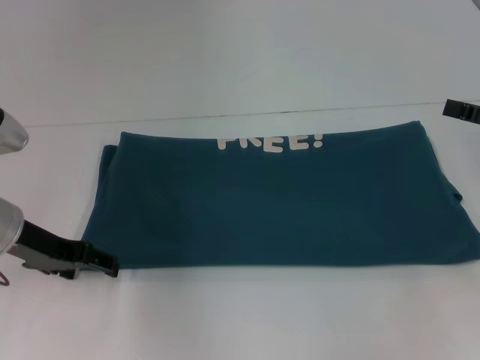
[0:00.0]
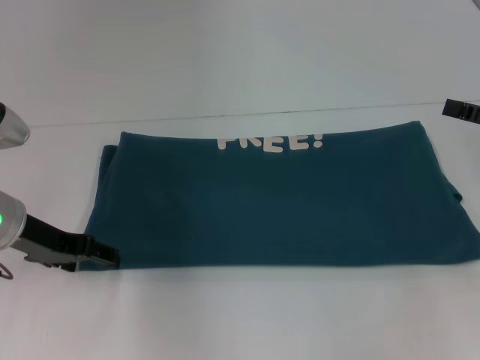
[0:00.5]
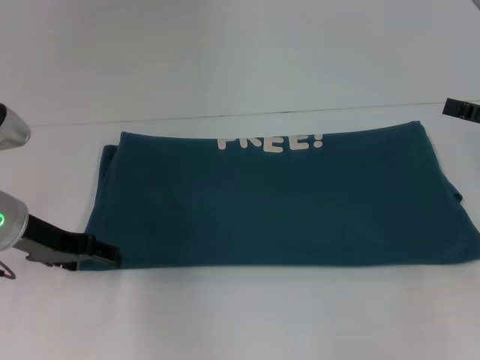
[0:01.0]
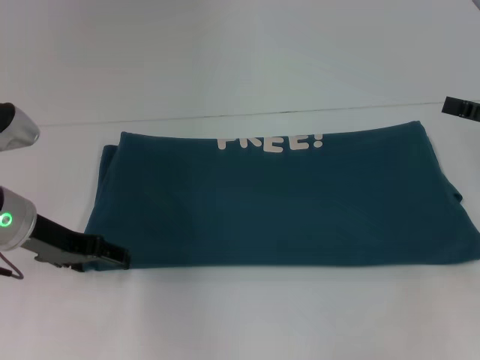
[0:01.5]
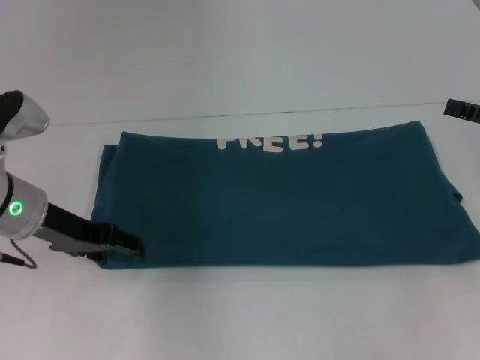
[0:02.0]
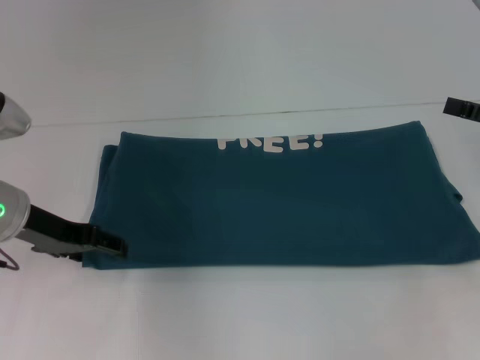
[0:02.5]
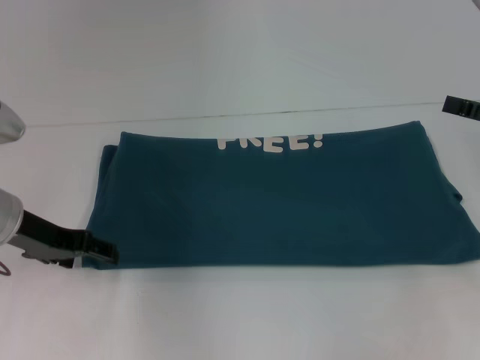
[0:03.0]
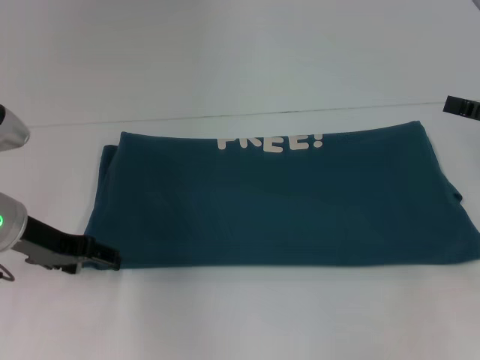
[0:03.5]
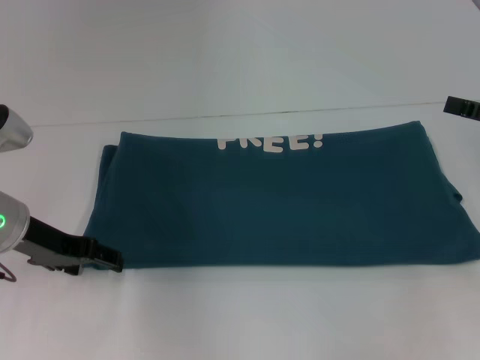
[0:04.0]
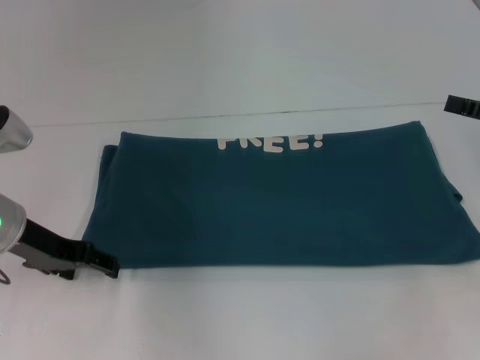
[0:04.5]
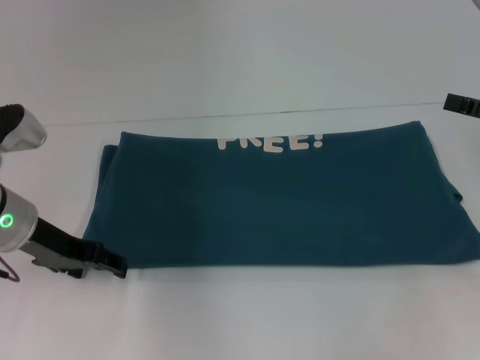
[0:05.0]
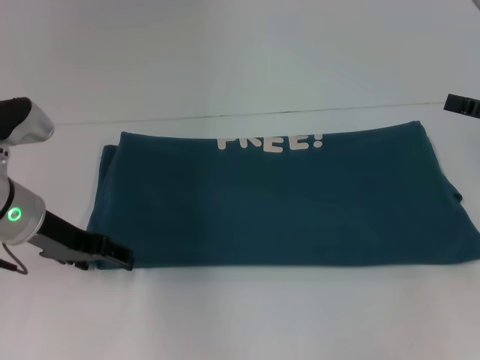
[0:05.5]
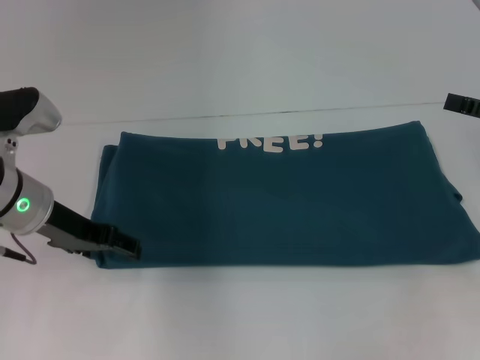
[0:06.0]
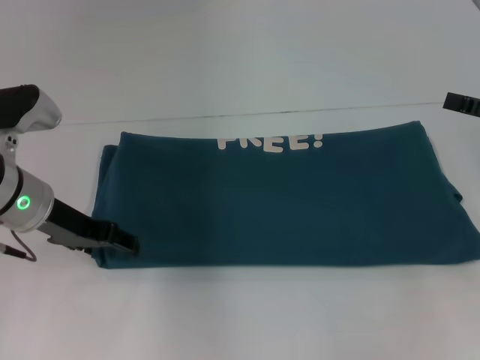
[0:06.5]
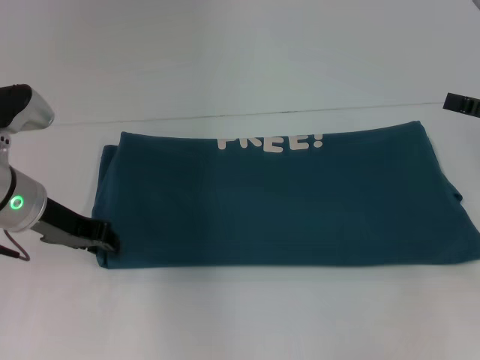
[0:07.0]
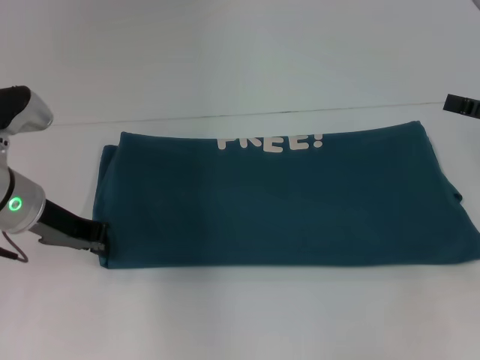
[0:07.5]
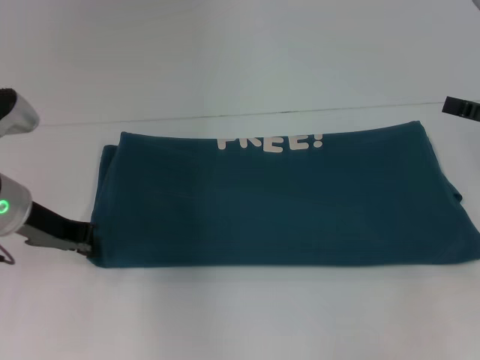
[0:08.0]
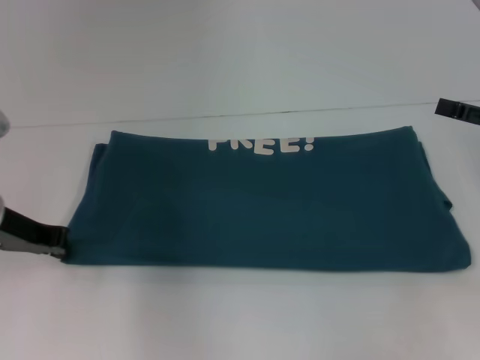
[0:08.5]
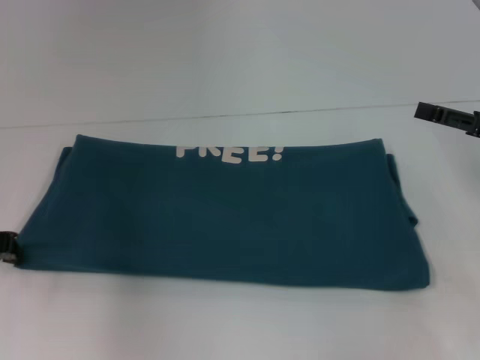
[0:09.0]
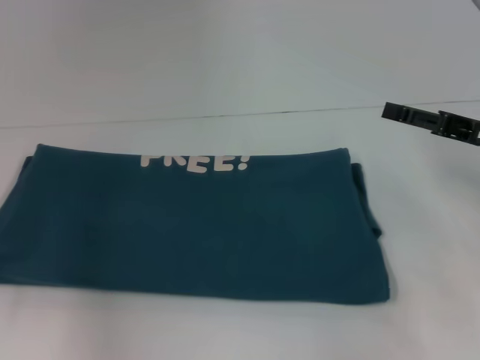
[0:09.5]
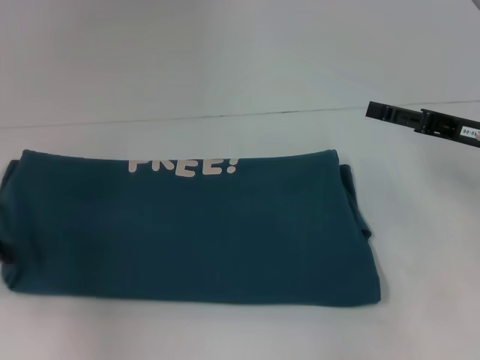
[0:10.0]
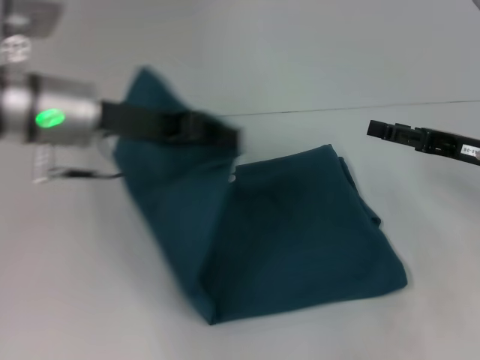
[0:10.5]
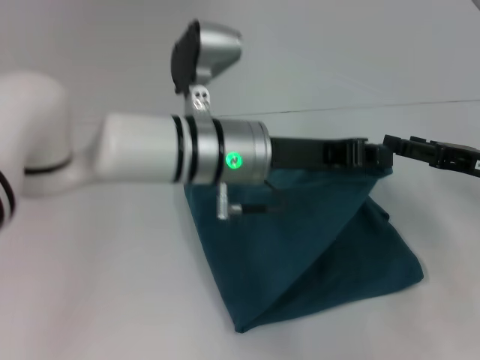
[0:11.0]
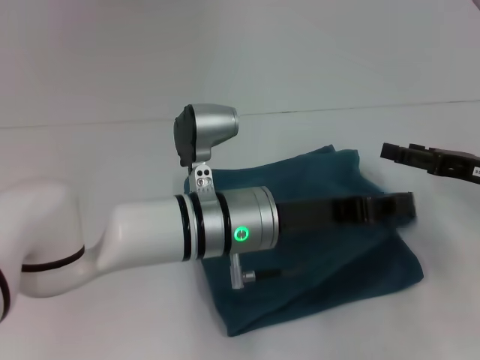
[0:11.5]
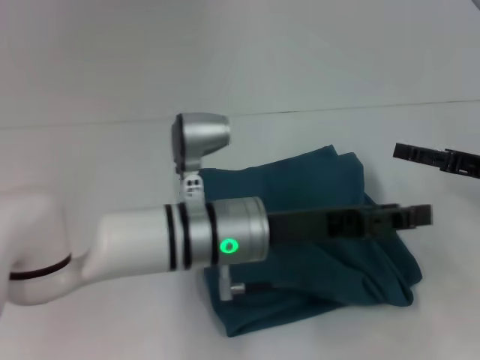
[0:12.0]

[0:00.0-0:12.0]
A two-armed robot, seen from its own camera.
Step, 0:00.0 to 0:11.5: Fold the clothes to the left.
0:00.0 to 0:06.0: There are only small adjustments of the grippers.
0:06.0 to 0:08.0: The left gripper closes up.
0:08.0 to 0:10.0: The left gripper shifts some 10 cm to the left and backward; the right gripper goes some 5 cm to the left.
0:10.0 to 0:12.0: The left gripper shifts roughly 30 cm to the right, and opens up.

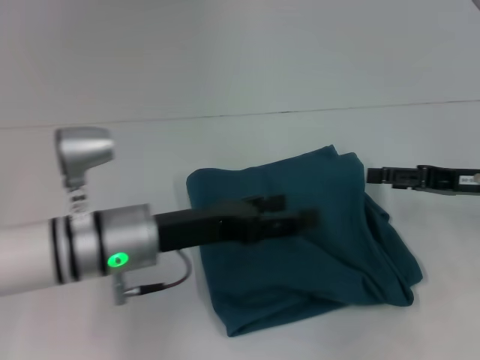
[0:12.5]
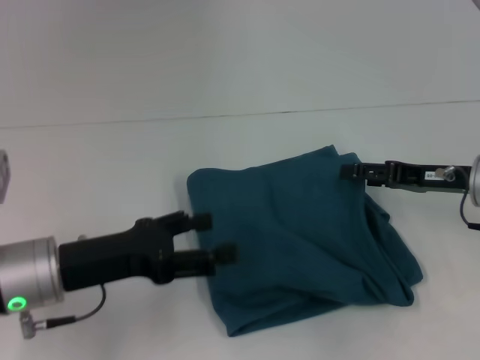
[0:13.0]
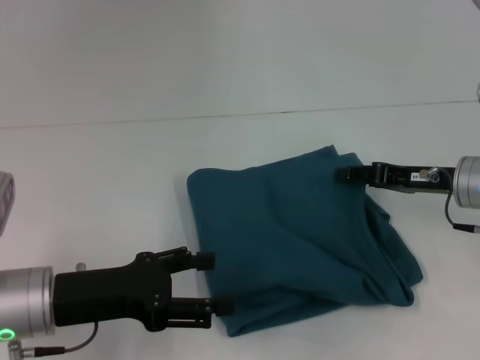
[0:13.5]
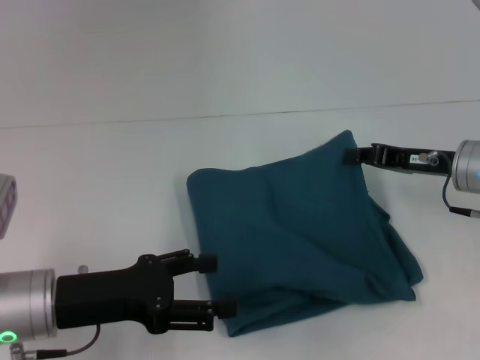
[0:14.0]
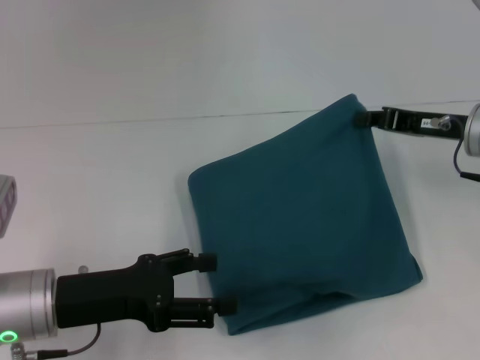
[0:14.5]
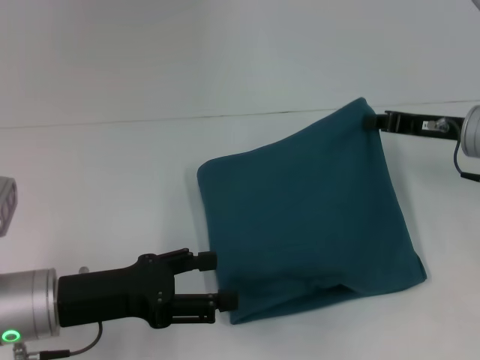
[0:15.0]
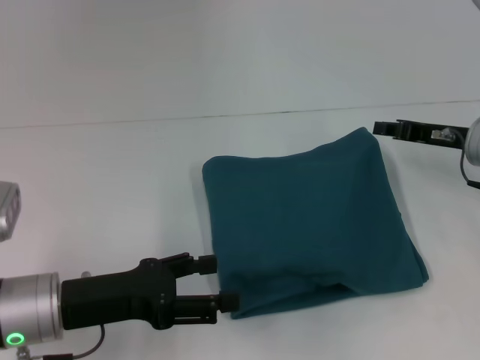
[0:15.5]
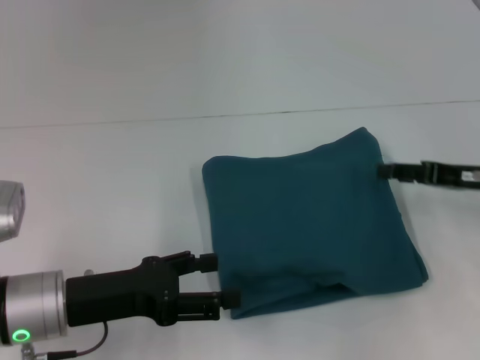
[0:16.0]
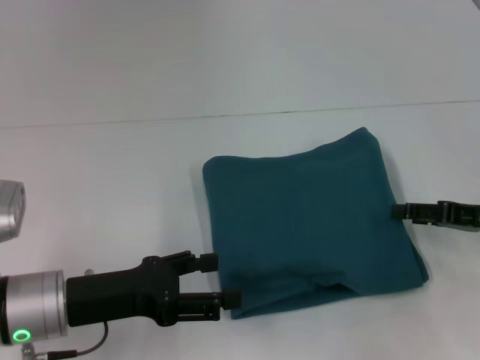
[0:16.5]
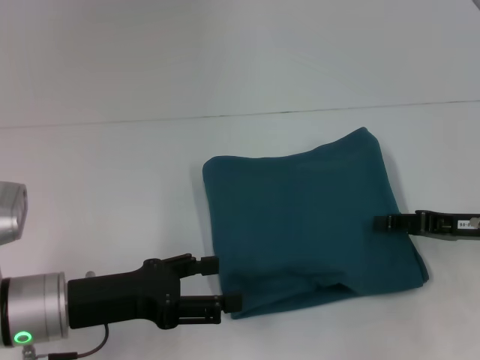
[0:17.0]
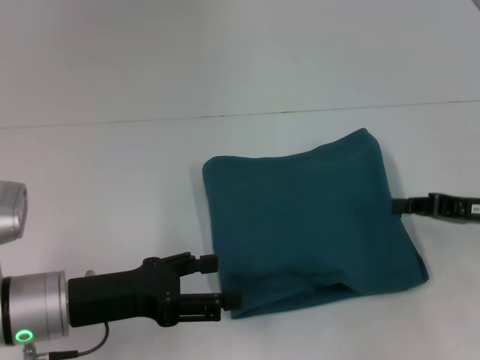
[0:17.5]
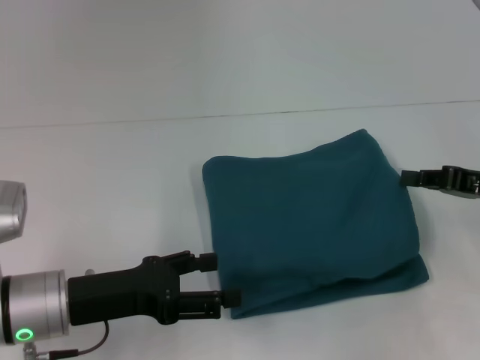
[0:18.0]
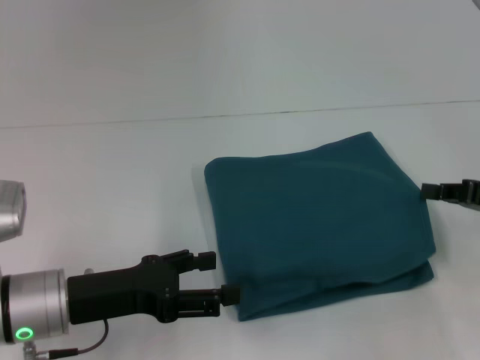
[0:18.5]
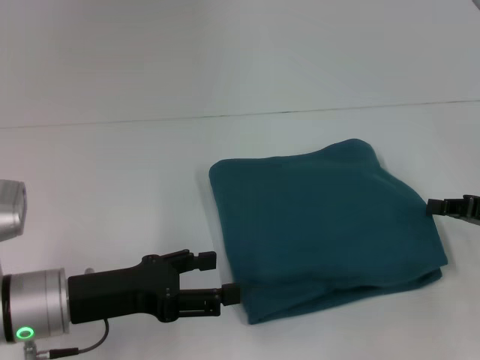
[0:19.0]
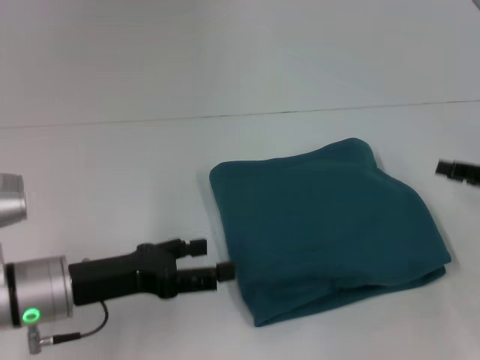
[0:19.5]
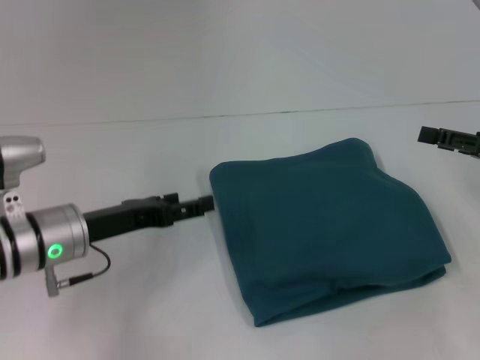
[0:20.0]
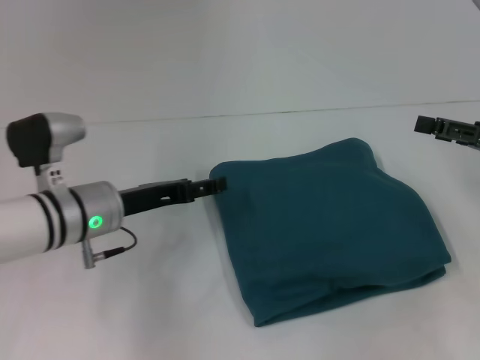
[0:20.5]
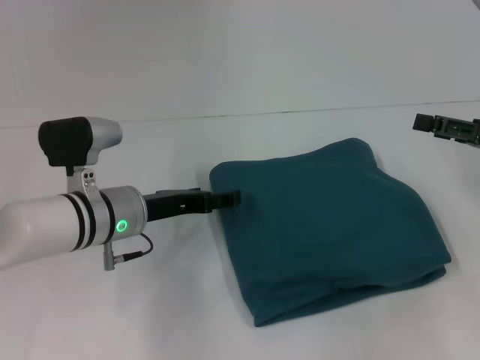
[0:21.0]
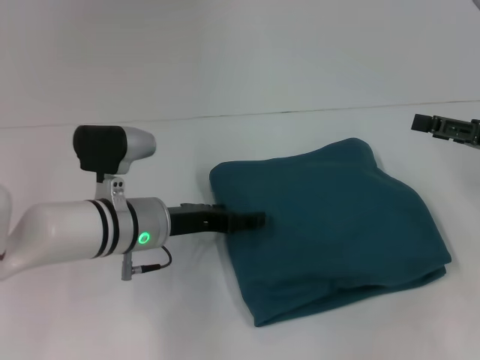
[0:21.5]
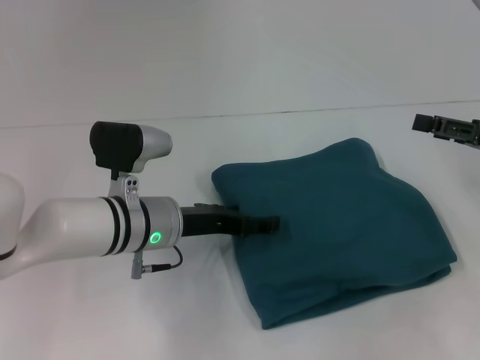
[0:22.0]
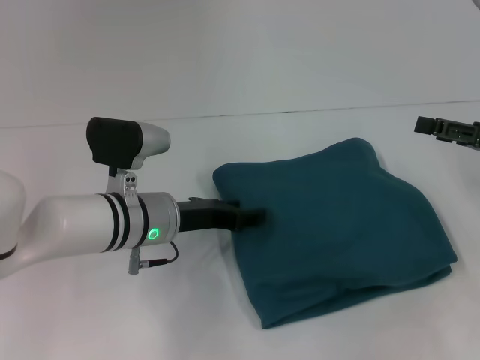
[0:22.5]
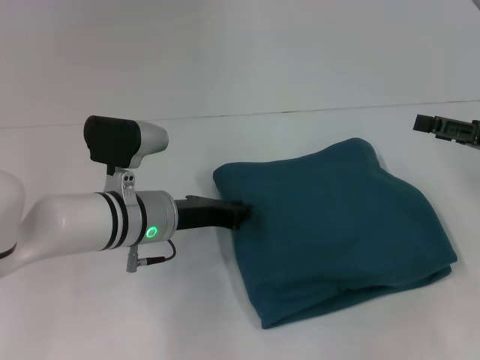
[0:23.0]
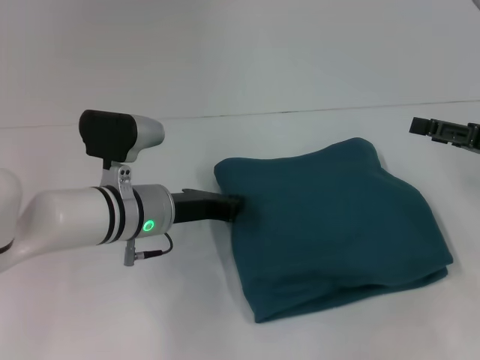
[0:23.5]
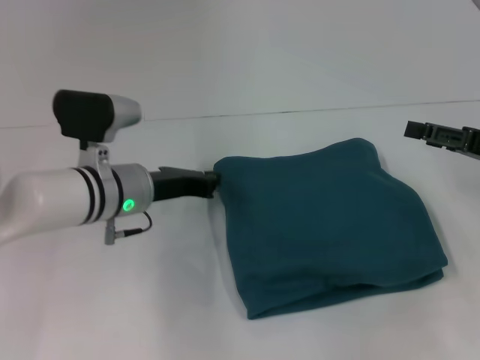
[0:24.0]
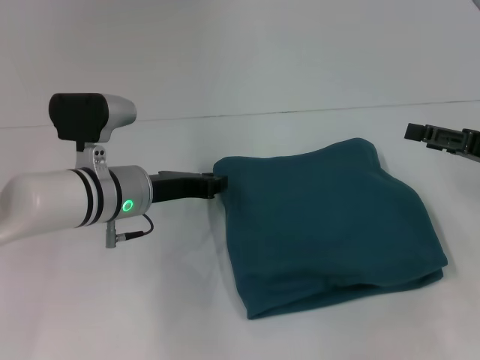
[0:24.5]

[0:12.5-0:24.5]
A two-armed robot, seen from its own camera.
0:12.5 to 0:14.5: The right gripper changes place by about 5 cm, and closes up. Meanwhile the left gripper goes some 10 cm to the left.
0:14.5 to 0:16.5: The right gripper moves backward and to the right, some 10 cm, and opens up.
0:16.5 to 0:18.5: The right gripper closes.
0:18.5 to 0:20.5: The right gripper opens its fingers; the left gripper shifts some 10 cm forward.
0:20.5 to 0:22.5: The left gripper goes approximately 5 cm to the right.
0:22.5 to 0:24.5: The left gripper closes its fingers.

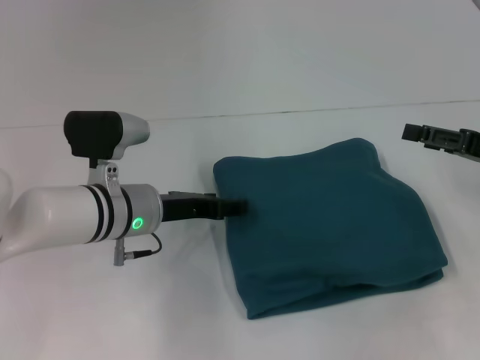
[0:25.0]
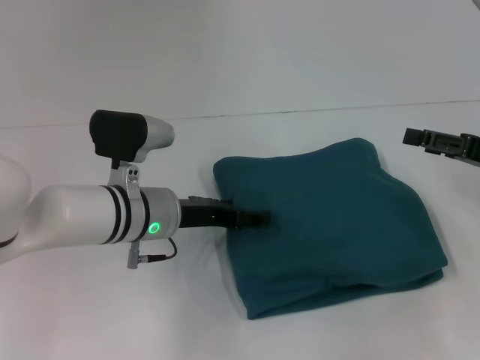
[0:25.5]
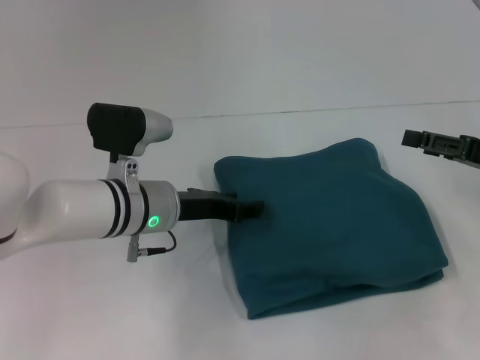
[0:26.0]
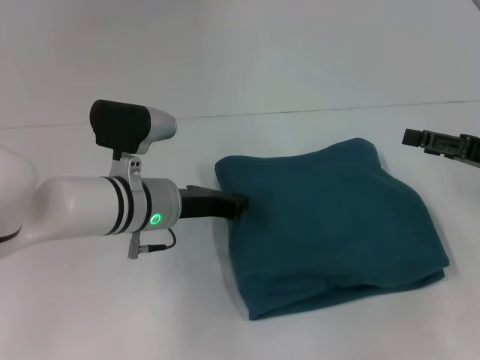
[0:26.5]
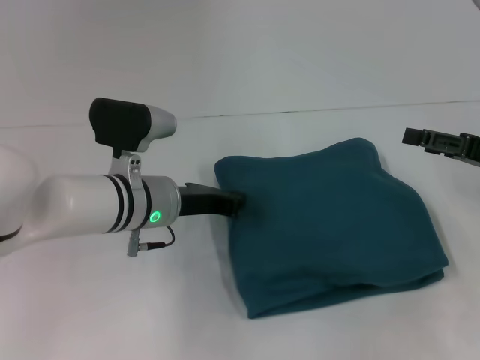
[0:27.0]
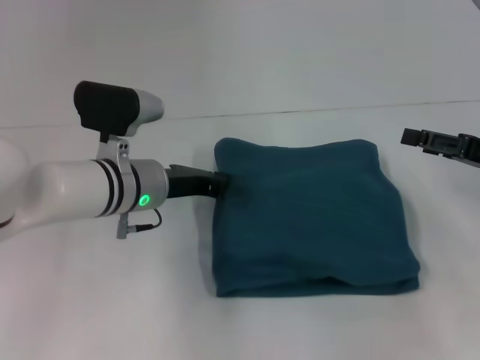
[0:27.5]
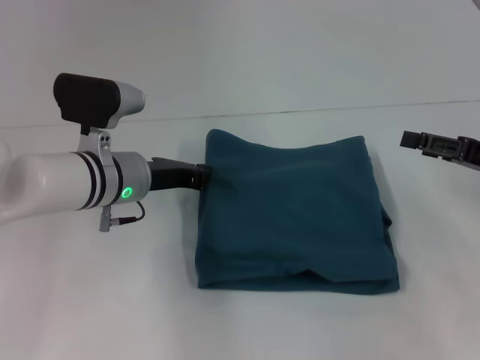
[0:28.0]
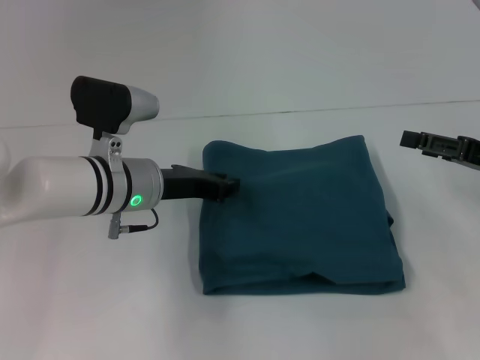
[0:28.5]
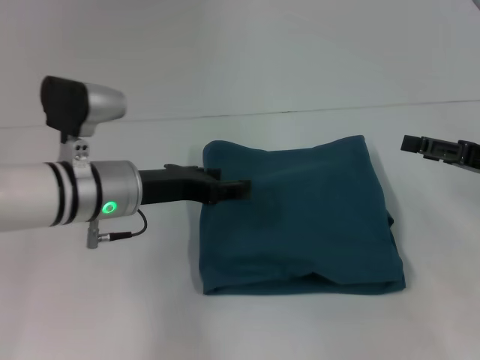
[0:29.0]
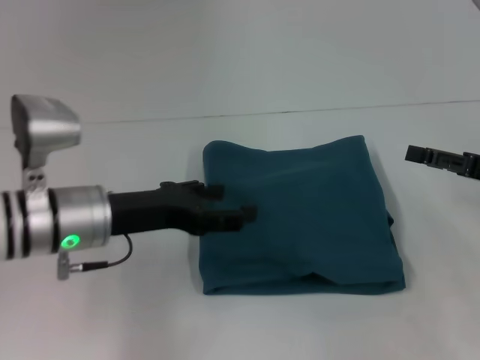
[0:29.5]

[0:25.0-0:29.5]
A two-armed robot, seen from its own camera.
0:25.0 to 0:27.0: The left gripper closes its fingers.
0:27.0 to 0:29.5: The left gripper goes about 5 cm to the left, and opens its fingers.
